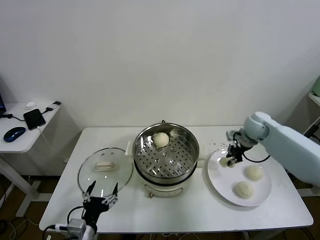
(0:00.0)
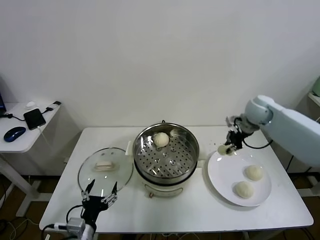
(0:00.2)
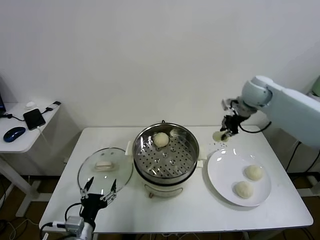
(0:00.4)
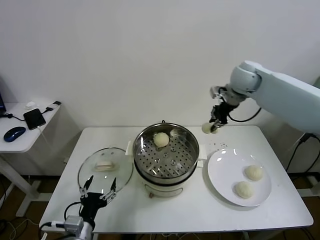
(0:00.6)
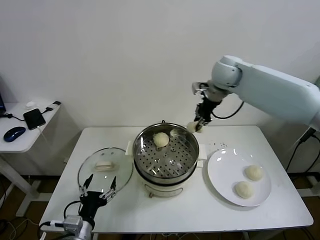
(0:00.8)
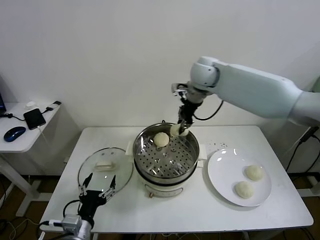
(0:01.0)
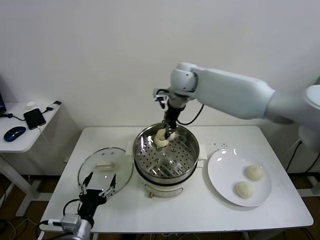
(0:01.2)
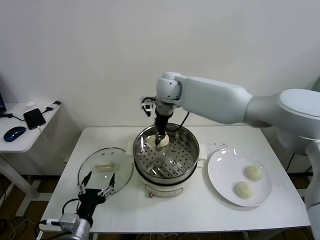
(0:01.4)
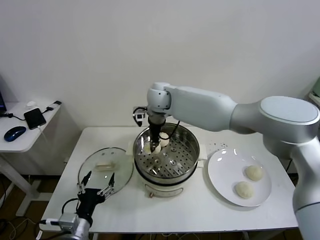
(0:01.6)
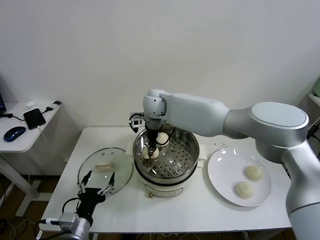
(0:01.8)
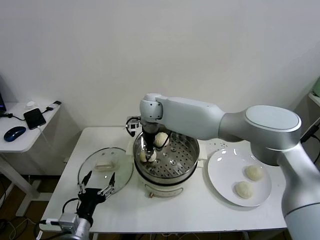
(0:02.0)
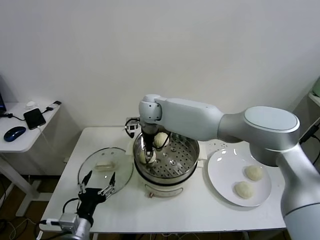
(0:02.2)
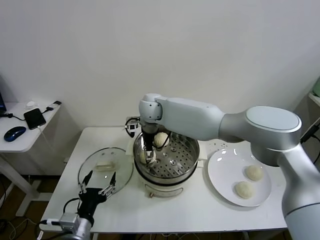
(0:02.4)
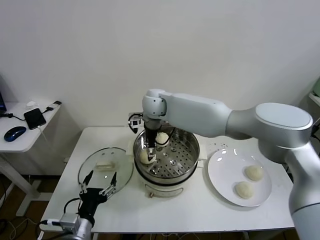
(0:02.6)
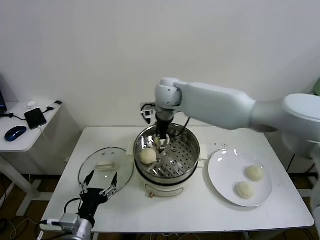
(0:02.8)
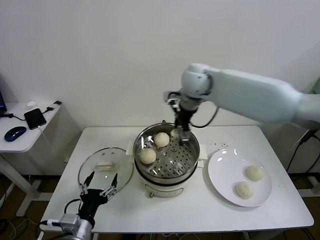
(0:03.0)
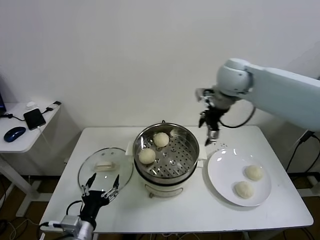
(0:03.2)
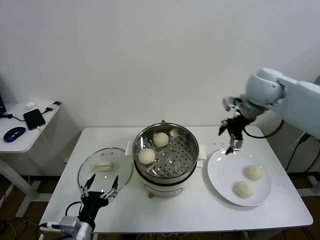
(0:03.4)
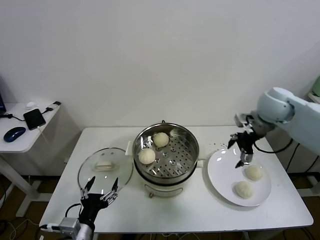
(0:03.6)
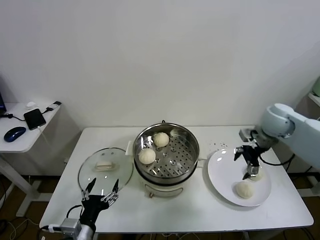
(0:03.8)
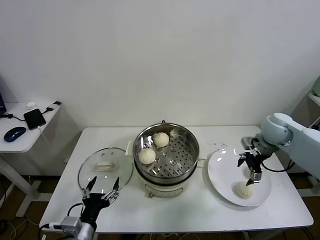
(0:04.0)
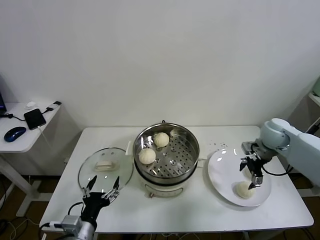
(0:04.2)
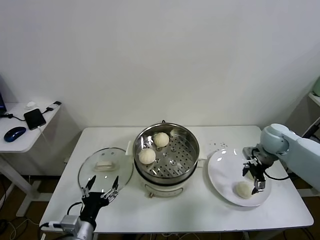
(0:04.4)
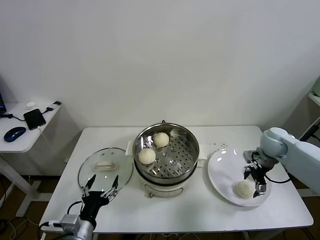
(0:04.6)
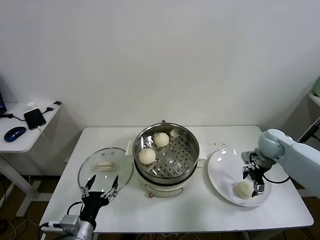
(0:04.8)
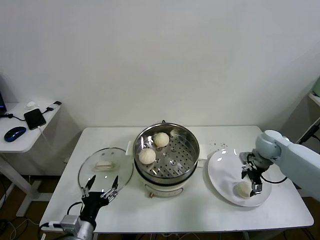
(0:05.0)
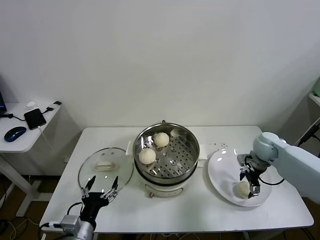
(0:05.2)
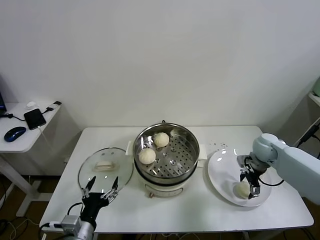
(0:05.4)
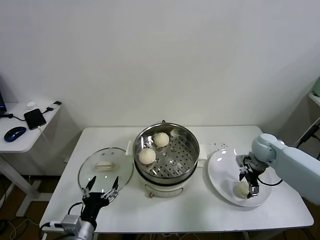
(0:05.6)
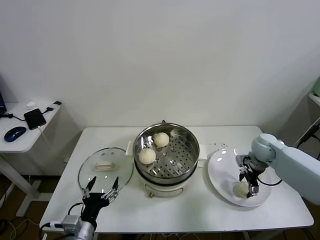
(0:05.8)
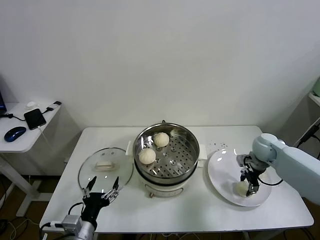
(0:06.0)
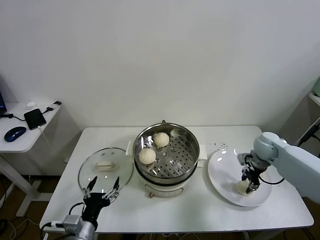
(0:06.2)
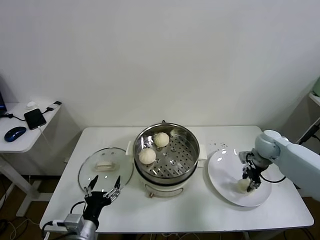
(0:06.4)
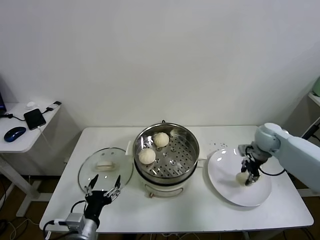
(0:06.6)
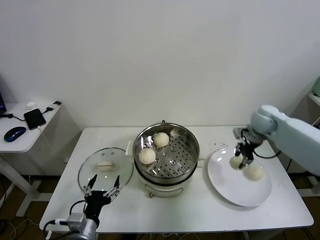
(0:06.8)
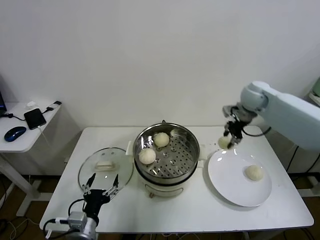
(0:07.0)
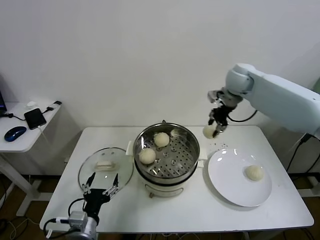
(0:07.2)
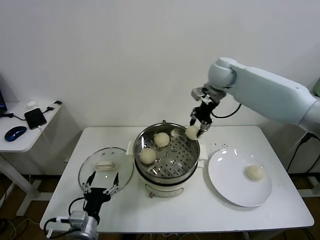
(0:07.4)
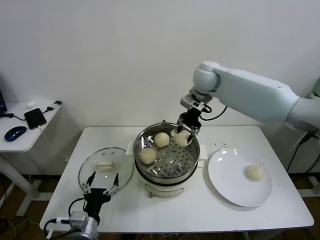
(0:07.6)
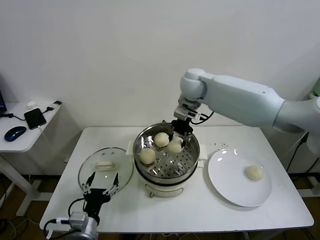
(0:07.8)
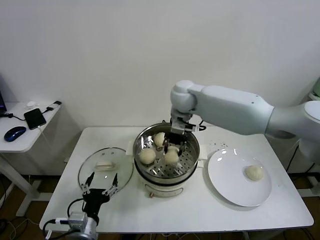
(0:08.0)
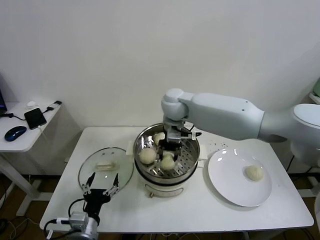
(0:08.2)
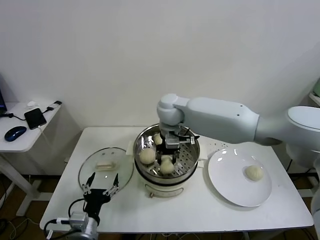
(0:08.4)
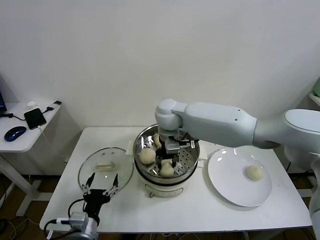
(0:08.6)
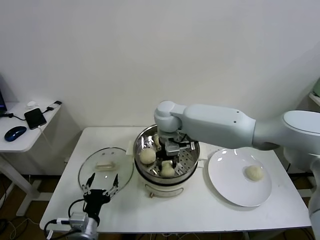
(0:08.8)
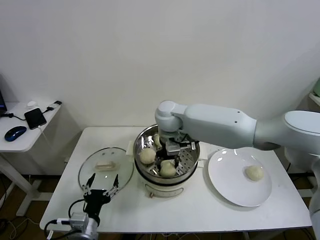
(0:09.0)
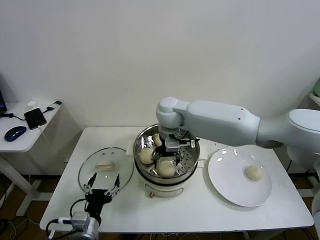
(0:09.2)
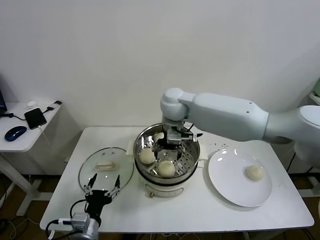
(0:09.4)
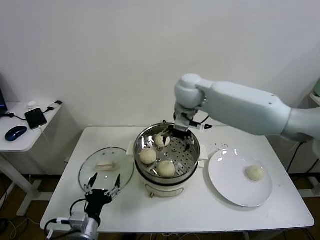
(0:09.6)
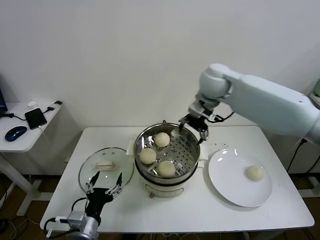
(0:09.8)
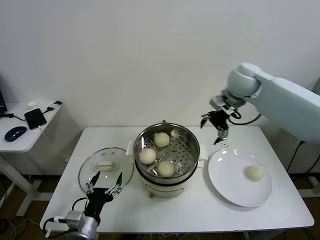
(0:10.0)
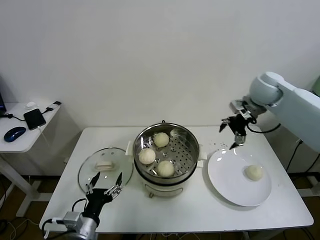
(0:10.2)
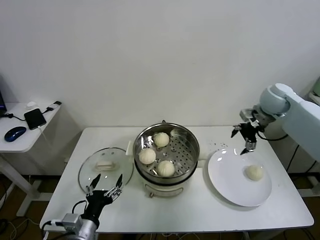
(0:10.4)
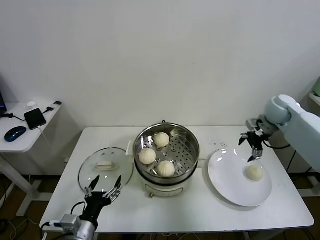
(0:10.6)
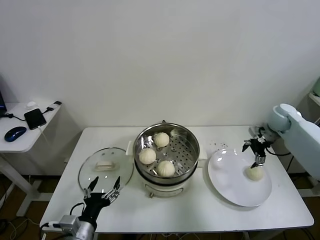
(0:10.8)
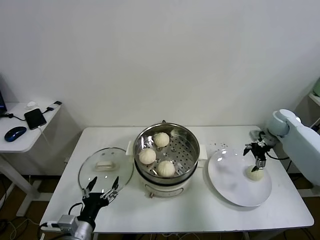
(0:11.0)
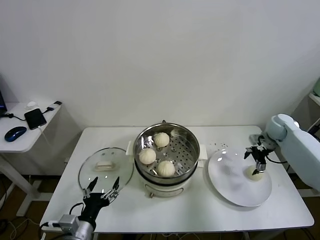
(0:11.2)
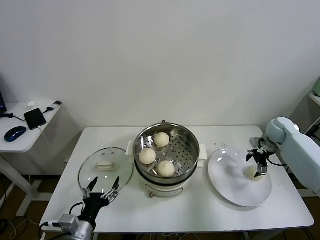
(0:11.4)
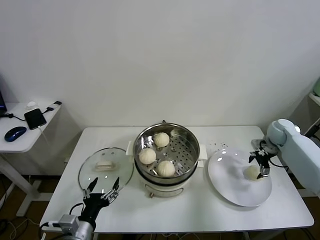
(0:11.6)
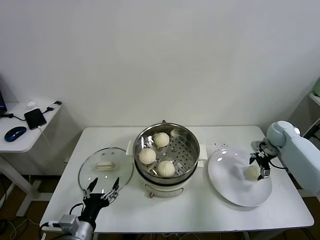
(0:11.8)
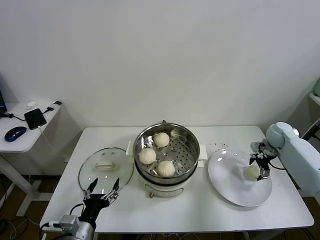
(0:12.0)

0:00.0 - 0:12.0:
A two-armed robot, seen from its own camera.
Task of the whole recording: take steamed baozi put them in steamer.
Step, 0:00.0 - 0:02.4: Place the baozi on the steamer with right gripper.
Step, 0:02.6 - 0:05.8: Grasp the baozi in the plate with right gripper.
Step, 0:06.0 - 0:09.0: Place the baozi on the steamer with right gripper.
0:00.0 - 0:01.6: The right gripper heads to the left, covering some 35 cm.
0:01.6 - 0:03.0: The right gripper moves to the right and upward, some 20 cm, and opens its fingers.
0:03.0 - 0:04.4: The right gripper moves to the right and downward, about 35 cm.
0:04.4 - 0:06.0: The right gripper goes roughly 5 cm downward, and closes up.
0:06.0 - 0:07.6: The right gripper shifts some 35 cm to the left, upward and forward.
0:07.6 - 0:09.0: The right gripper travels to the left, downward and backward by roughly 15 cm.
0:09.0 - 0:10.4: The right gripper is displaced to the right by approximately 35 cm.
0:10.4 - 0:12.0: The right gripper shifts roughly 20 cm downward and to the right.

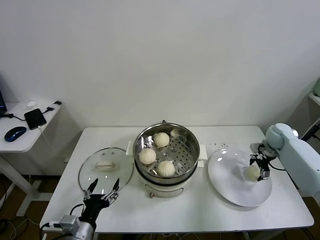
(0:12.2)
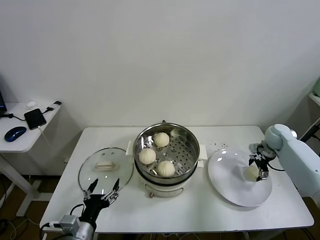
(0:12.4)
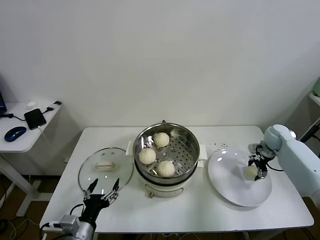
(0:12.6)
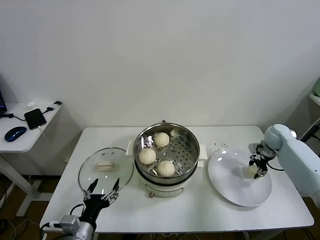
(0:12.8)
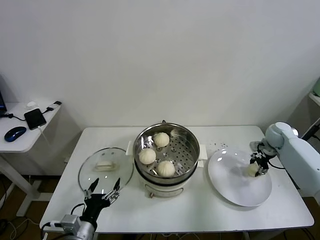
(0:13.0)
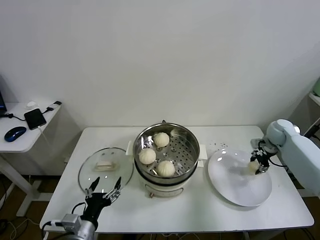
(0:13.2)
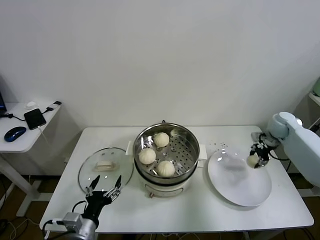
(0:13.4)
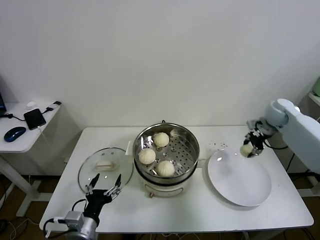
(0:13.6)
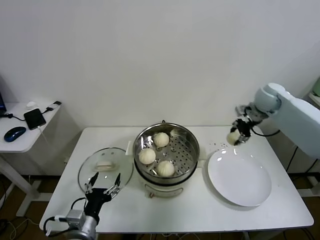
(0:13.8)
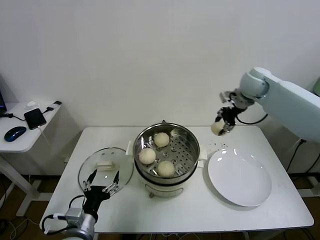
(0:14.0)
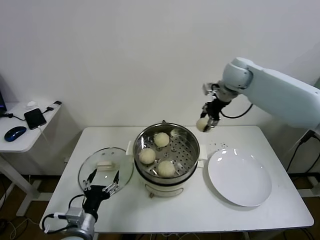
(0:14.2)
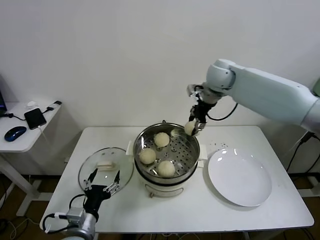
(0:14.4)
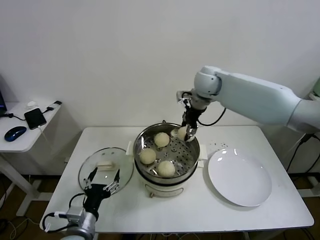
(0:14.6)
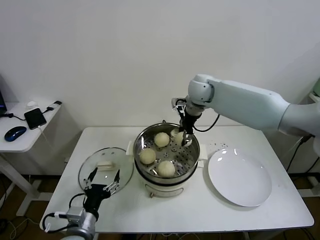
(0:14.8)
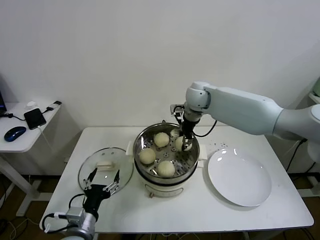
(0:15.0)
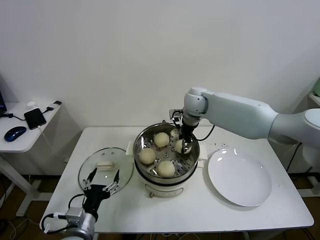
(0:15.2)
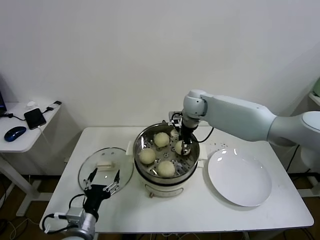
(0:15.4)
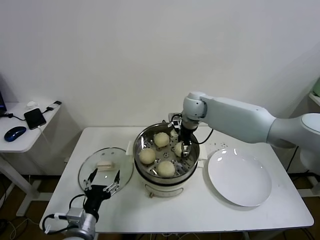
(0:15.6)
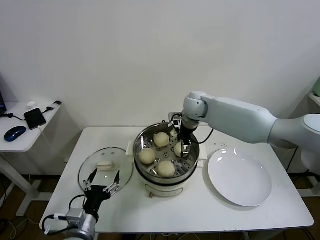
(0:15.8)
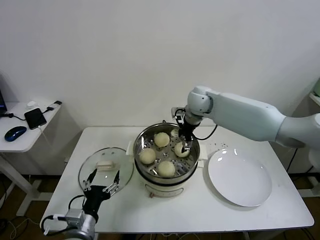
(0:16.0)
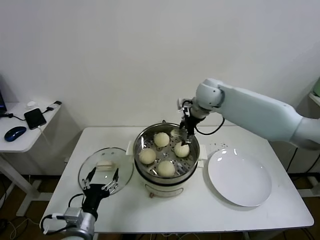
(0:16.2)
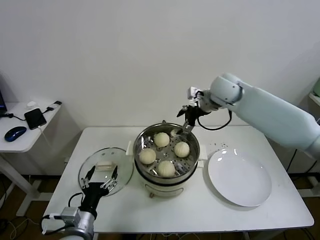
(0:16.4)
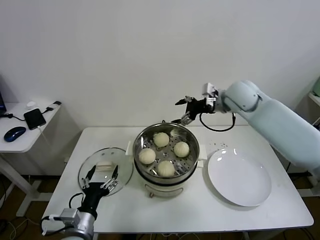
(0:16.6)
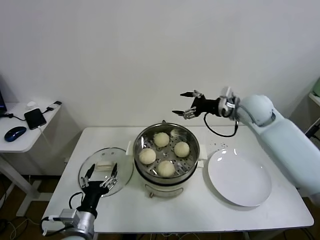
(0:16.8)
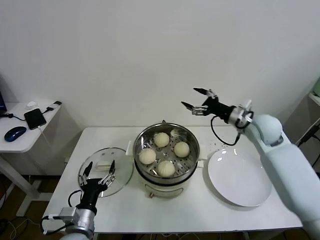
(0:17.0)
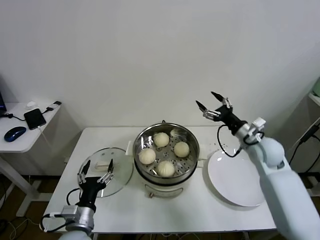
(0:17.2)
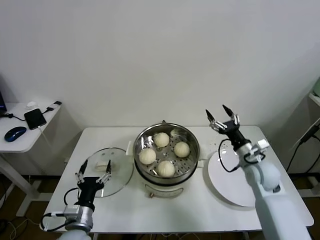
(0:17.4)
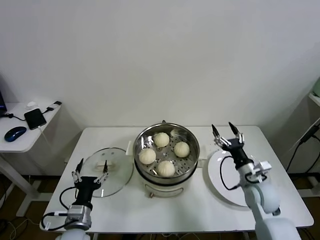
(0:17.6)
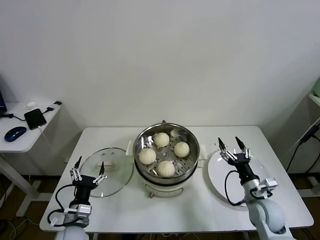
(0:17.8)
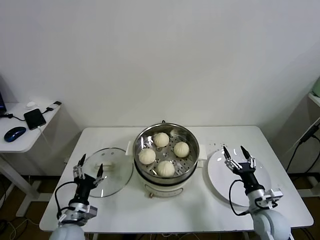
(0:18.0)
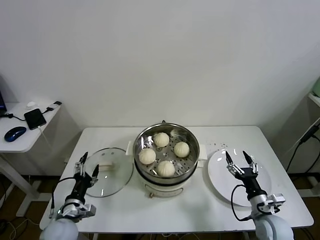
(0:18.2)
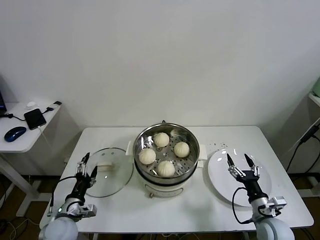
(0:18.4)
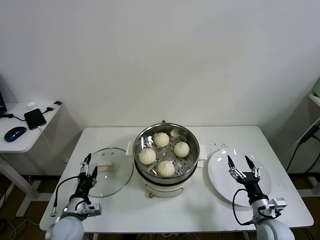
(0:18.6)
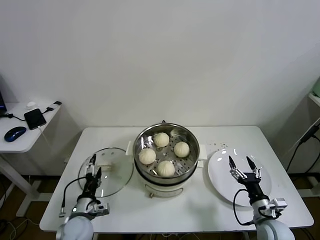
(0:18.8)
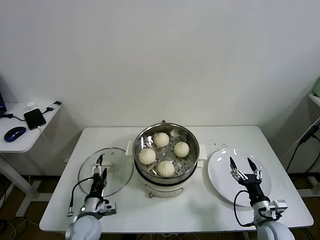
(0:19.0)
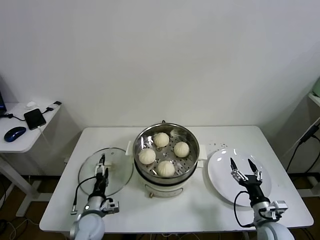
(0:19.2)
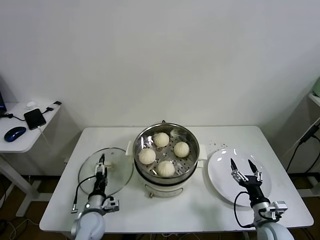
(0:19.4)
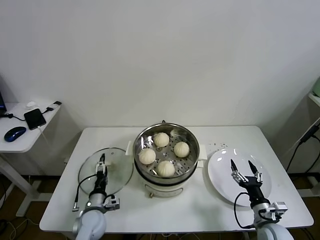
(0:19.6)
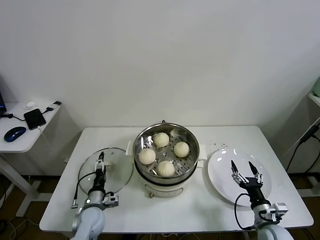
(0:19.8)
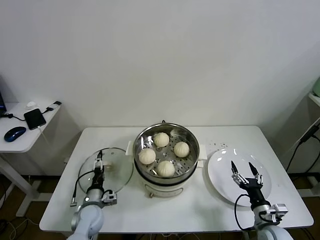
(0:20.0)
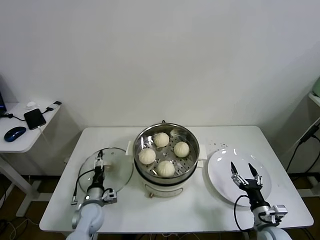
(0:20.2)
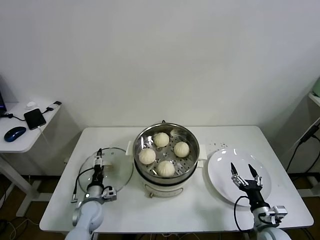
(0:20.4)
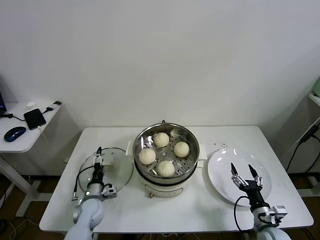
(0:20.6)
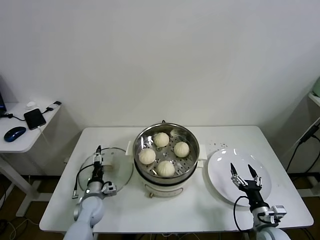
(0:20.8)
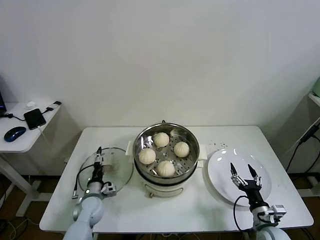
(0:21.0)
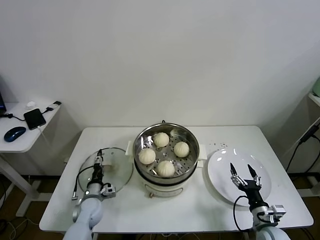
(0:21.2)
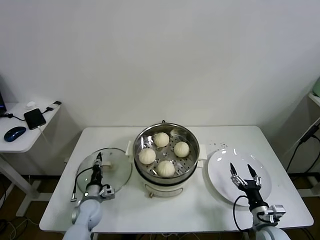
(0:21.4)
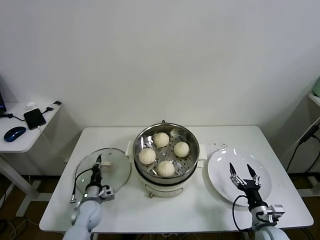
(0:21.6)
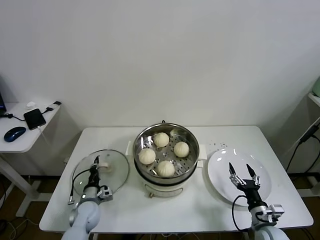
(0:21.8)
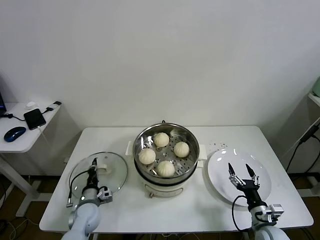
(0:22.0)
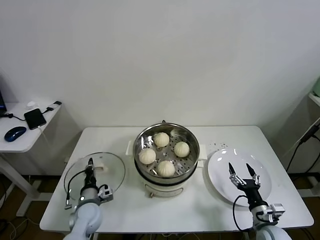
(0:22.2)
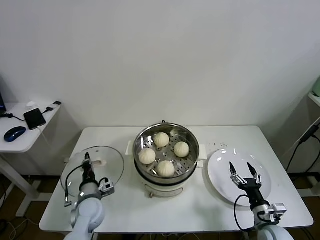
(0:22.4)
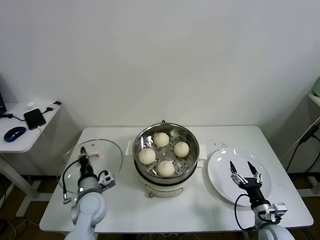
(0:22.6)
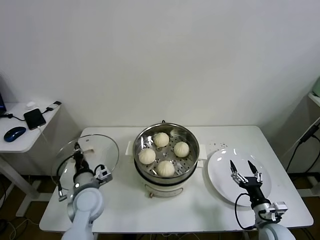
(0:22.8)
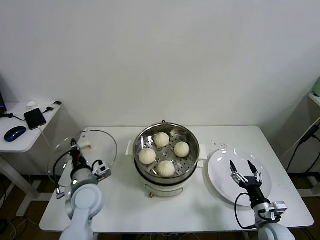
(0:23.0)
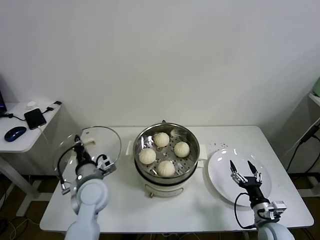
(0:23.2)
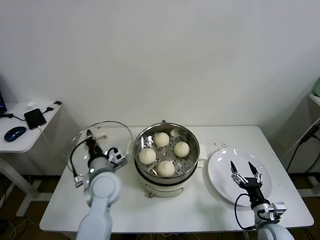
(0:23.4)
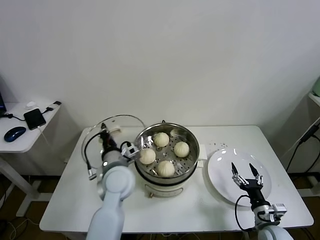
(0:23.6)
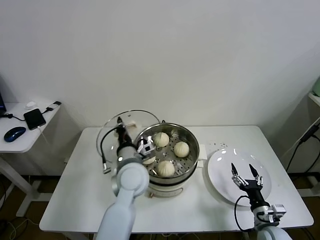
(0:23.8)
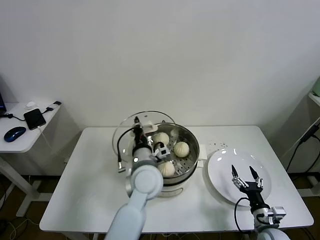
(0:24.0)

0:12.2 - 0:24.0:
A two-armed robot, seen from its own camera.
Task of the whole recording: take steamed baozi put them in steamer.
Step, 0:12.8 - 0:15.6: Place the baozi on the steamer with right gripper.
Step, 0:15.8 - 0:21.8: Grasp the pot lid with left gripper.
0:12.2 - 0:13.6: The right gripper moves upward, about 10 cm, and closes.
0:13.6 - 0:15.2: The right gripper heads to the left, covering roughly 30 cm.
0:15.2 - 0:16.6: The right gripper goes some 15 cm to the right, upward and backward, and opens up.
0:16.6 - 0:18.2: The right gripper shifts roughly 40 cm downward and backward. Meanwhile the left gripper goes roughly 10 cm to the left, downward and forward.
0:18.2 - 0:19.6: The left gripper travels to the right and downward by approximately 10 cm.
0:19.6 - 0:21.0: The left gripper travels forward by roughly 5 cm.
0:21.0 - 0:22.6: The left gripper heads upward, covering roughly 10 cm, and closes up.
0:22.6 - 0:24.0: The left gripper moves to the right and upward, some 20 cm.
